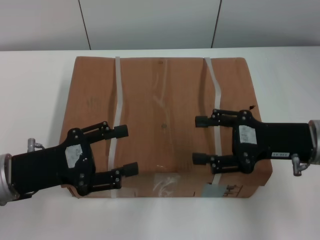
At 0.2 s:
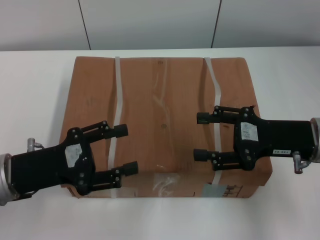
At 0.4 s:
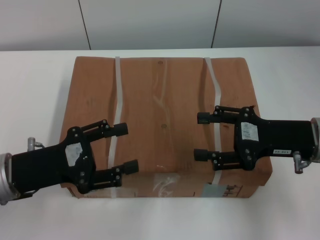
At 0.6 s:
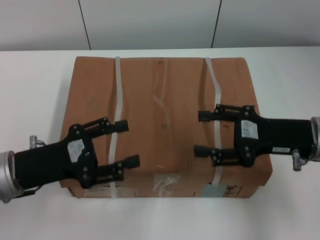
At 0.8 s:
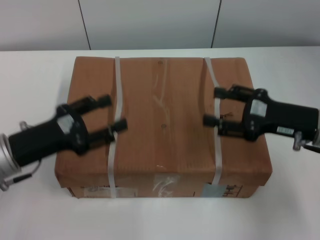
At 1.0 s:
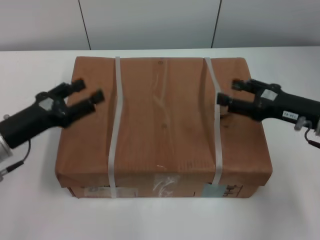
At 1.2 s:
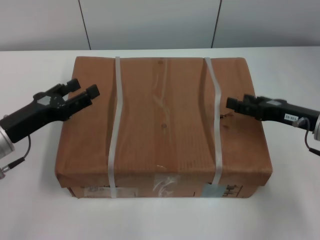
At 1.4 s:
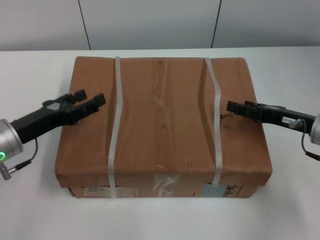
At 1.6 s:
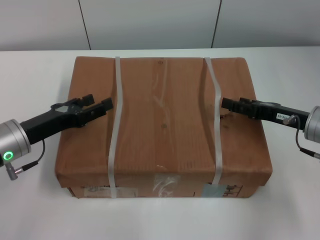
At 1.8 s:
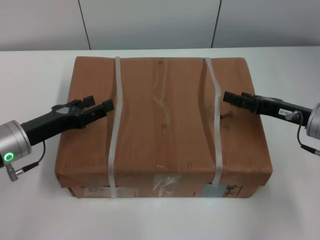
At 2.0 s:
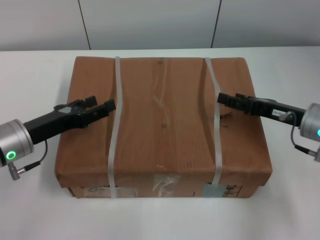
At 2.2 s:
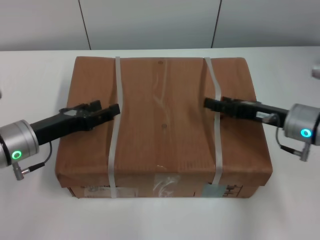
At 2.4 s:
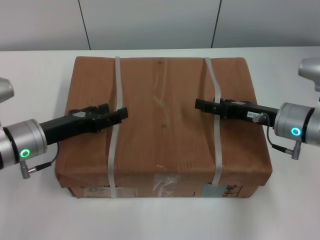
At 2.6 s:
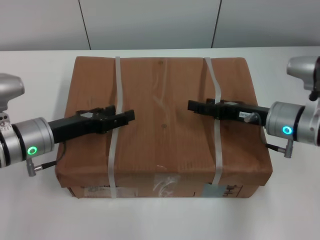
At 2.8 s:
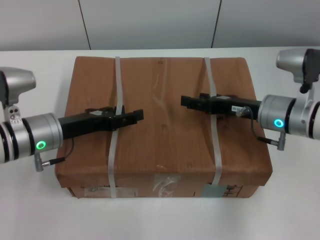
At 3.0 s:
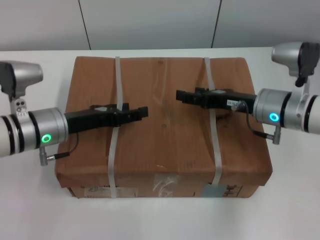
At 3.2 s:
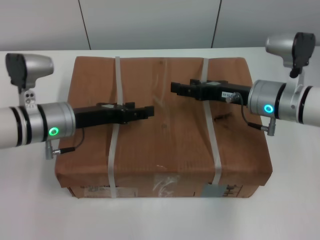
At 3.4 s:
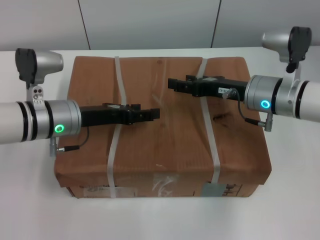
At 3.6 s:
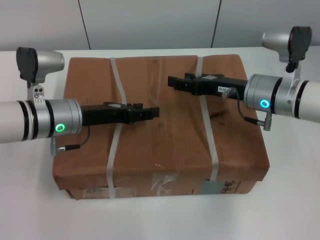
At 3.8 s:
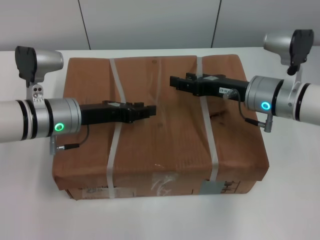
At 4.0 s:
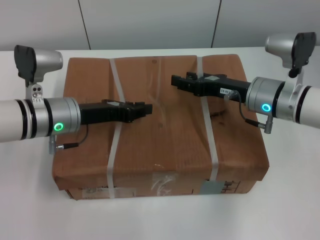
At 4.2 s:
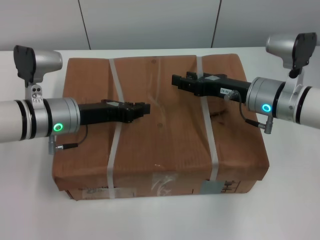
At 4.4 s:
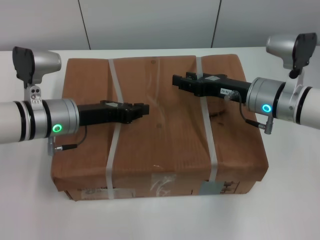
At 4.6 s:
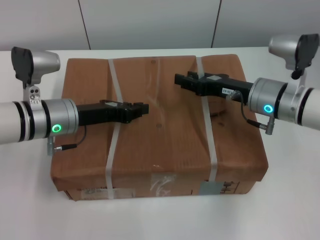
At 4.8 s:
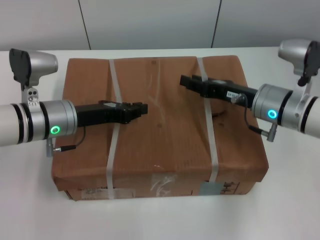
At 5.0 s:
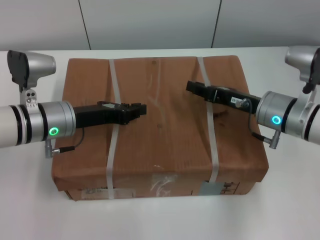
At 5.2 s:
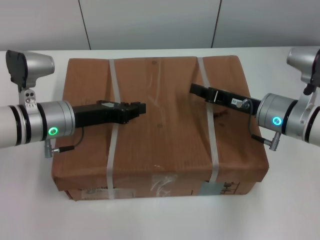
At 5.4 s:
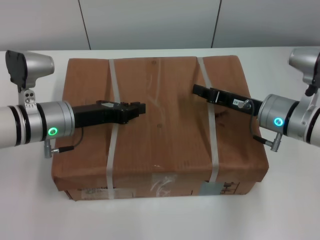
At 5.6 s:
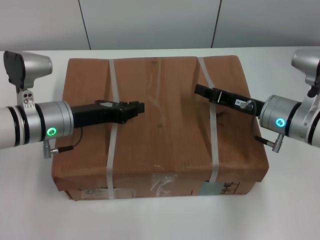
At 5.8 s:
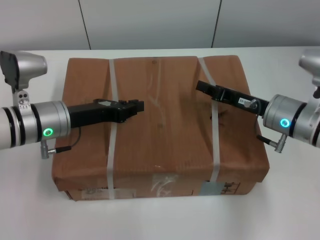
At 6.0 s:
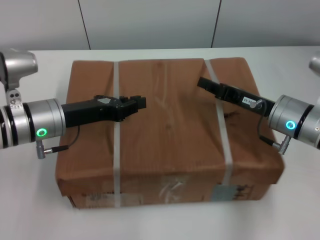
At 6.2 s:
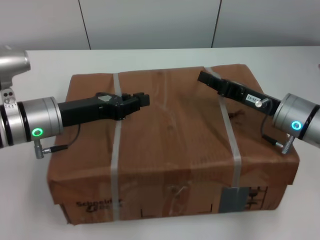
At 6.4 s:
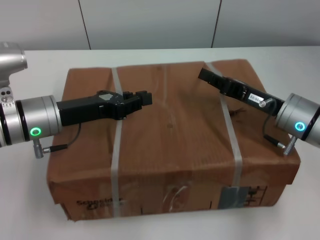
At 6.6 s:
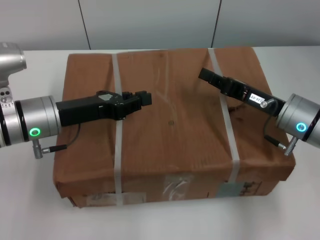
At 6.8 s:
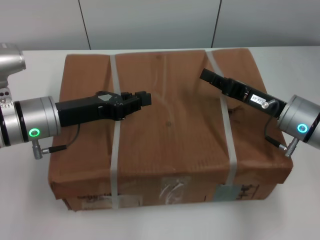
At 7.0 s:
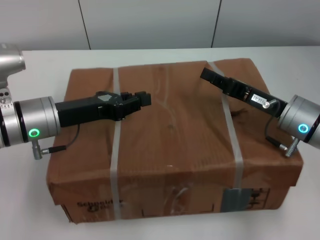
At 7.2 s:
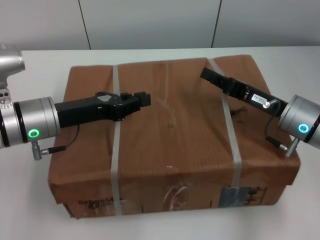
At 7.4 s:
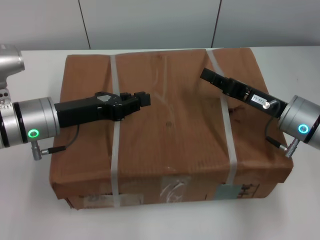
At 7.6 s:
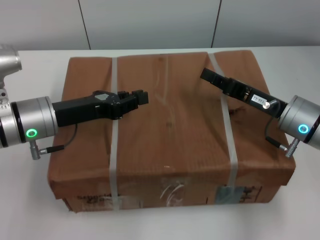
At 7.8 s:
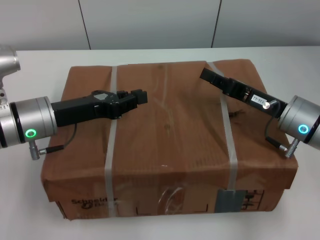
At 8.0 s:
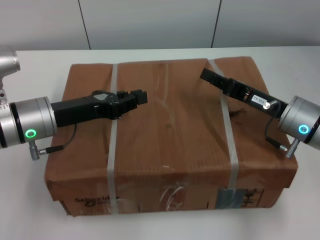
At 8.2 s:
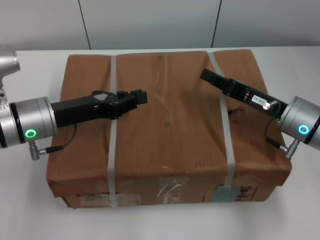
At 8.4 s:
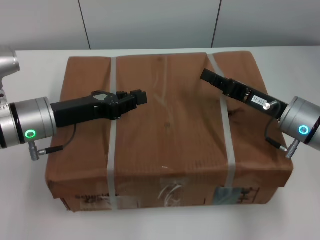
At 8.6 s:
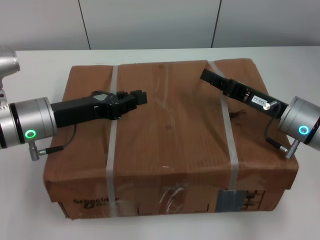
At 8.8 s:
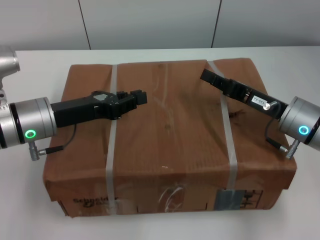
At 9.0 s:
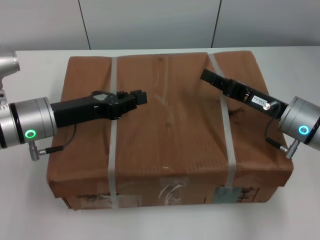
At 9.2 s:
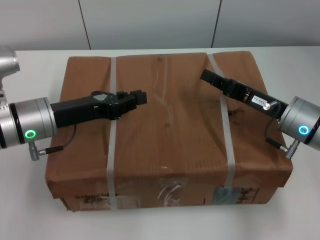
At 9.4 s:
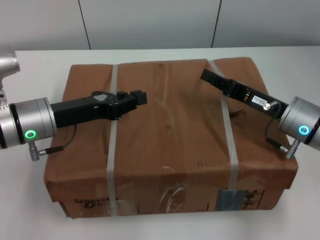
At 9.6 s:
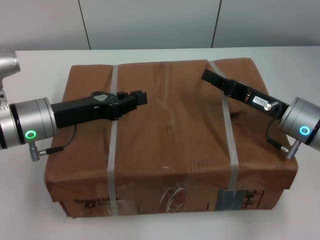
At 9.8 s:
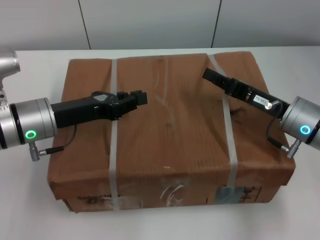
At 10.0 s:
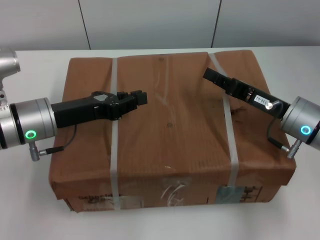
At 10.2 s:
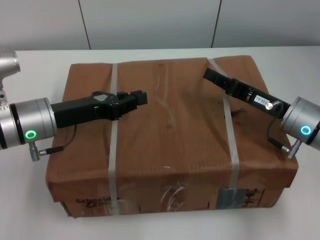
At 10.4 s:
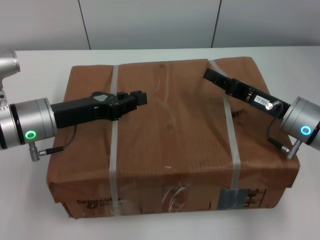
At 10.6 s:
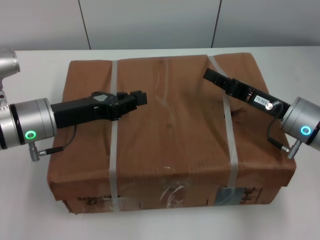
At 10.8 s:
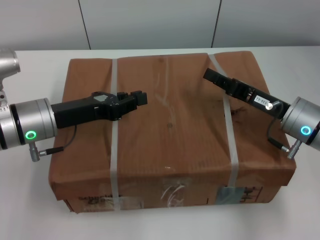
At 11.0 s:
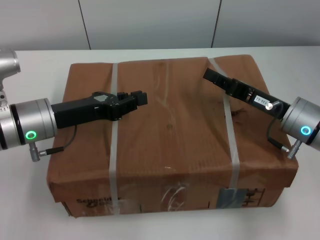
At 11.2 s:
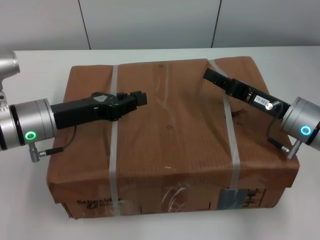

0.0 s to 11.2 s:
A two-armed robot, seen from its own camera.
Task of the whole recording: pick up the box from the table with both arms.
Step, 0.0 to 5.2 s: Grasp the bandage with left gripper.
Step, 0.0 to 5.2 s: Grasp the bandage with right gripper.
Step, 5.4 to 6.4 s: Lift the box with left gripper.
Step, 5.4 to 6.4 s: Lift the box with right gripper.
0.0 to 1.6 s: The left gripper shifts about 5 cm forward, while the right gripper ends up roughly 5 cm from where it was.
1.6 to 3.2 s: The left gripper is displaced to the right by about 5 cm. Meanwhile the right gripper travels to the left by some 10 cm.
3.2 to 4.8 s: The left gripper closes its fingers.
4.8 to 6.4 s: The right gripper closes.
6.4 to 11.2 s: Both grippers stay put.
